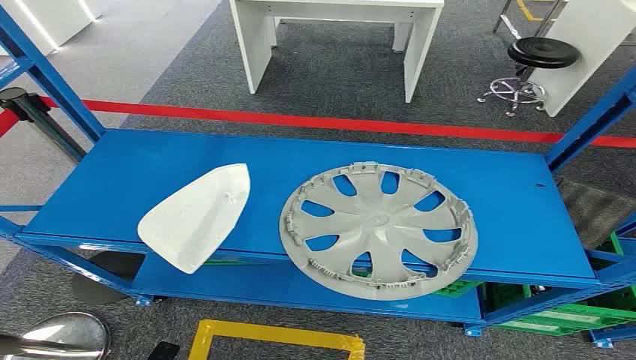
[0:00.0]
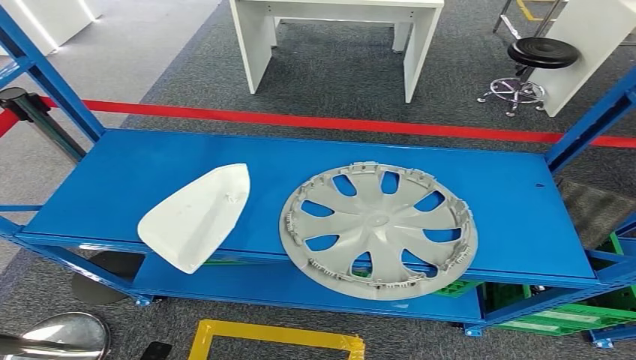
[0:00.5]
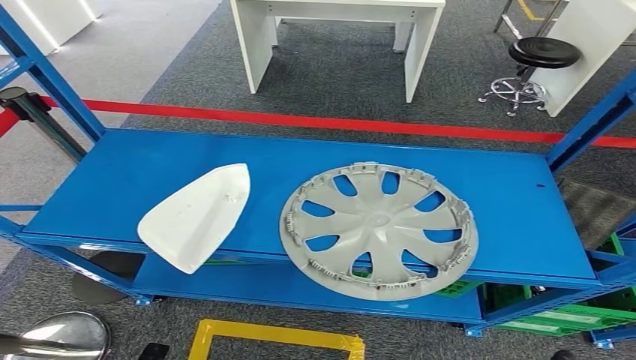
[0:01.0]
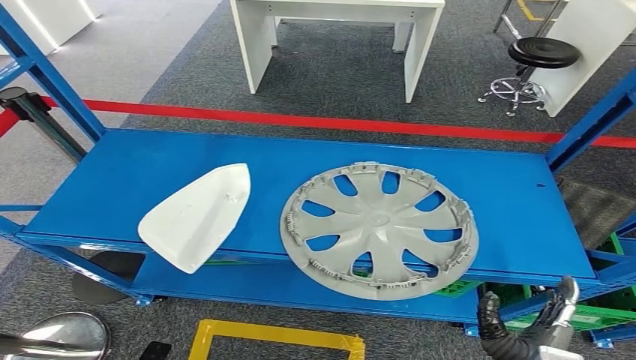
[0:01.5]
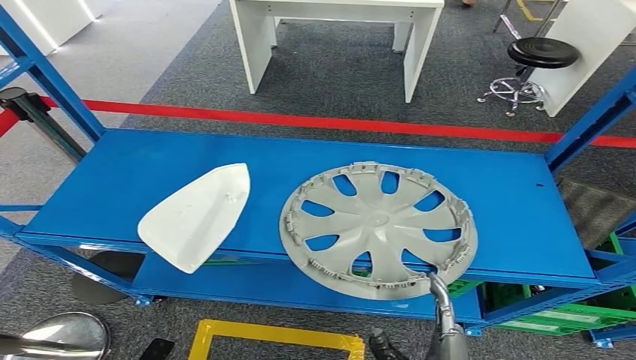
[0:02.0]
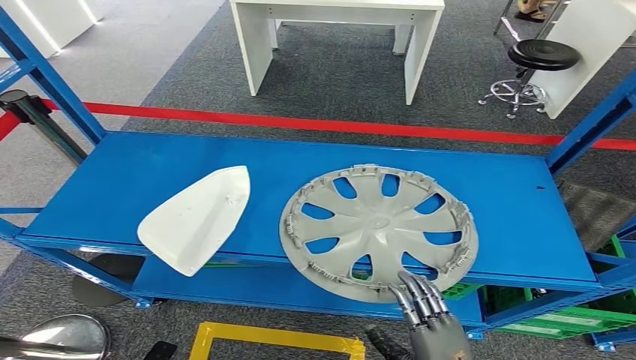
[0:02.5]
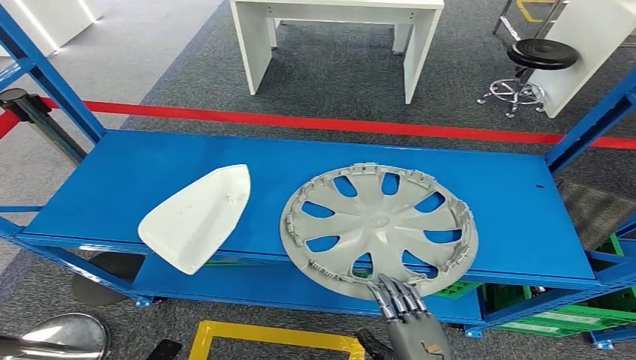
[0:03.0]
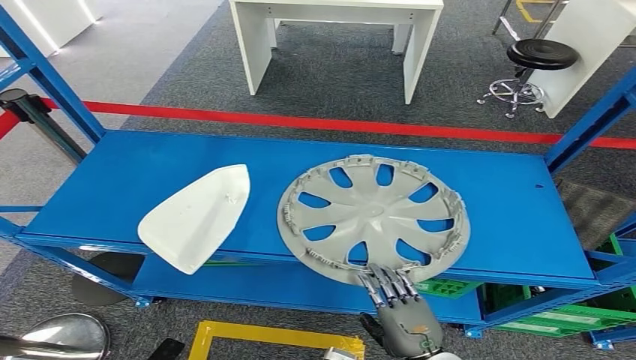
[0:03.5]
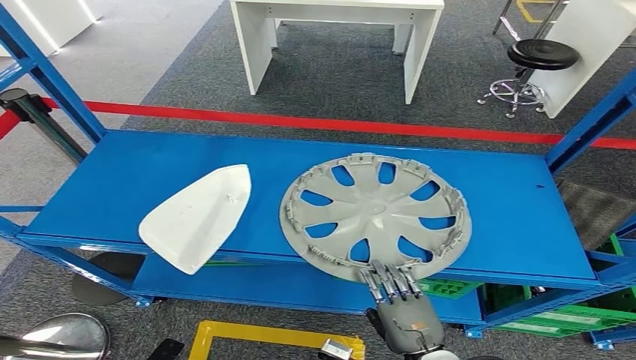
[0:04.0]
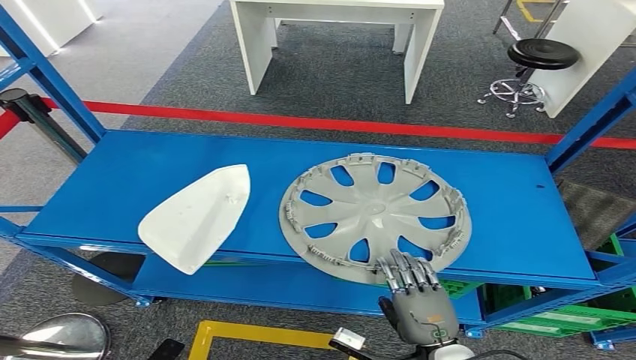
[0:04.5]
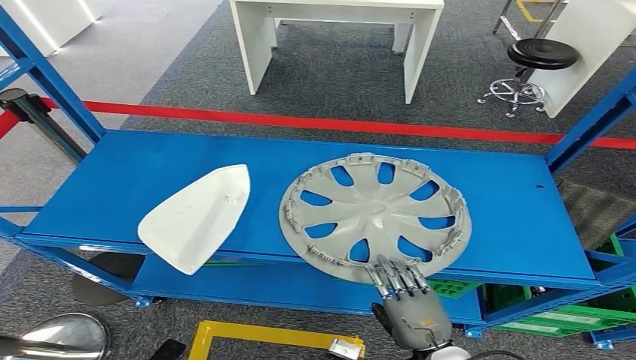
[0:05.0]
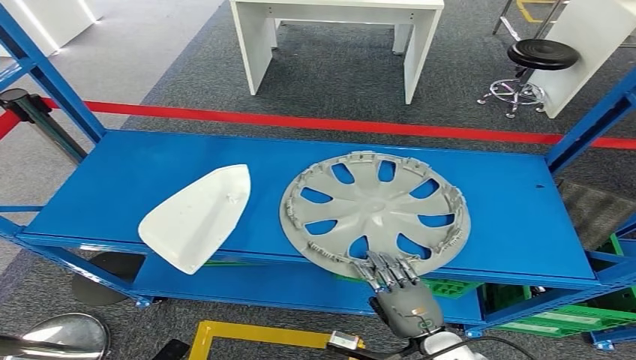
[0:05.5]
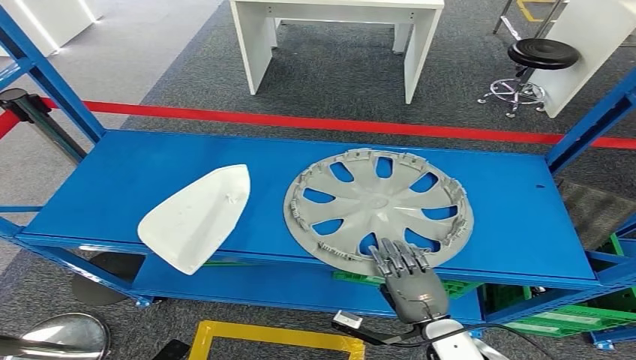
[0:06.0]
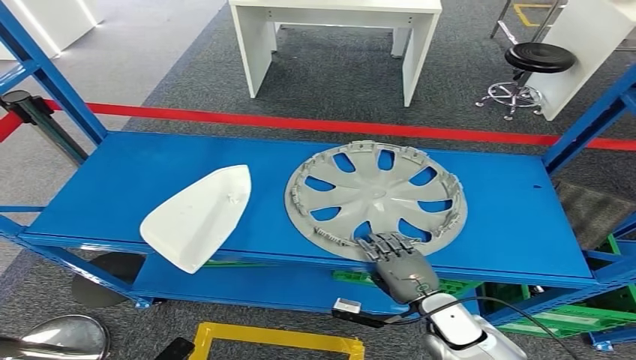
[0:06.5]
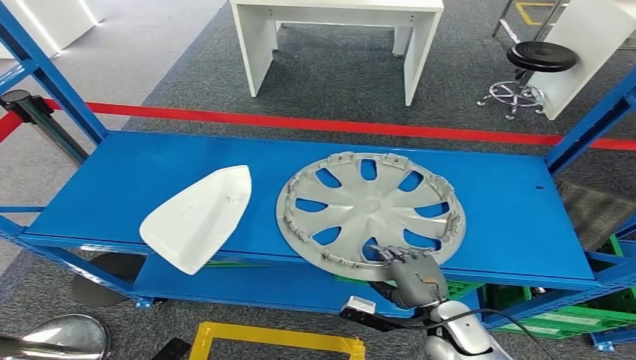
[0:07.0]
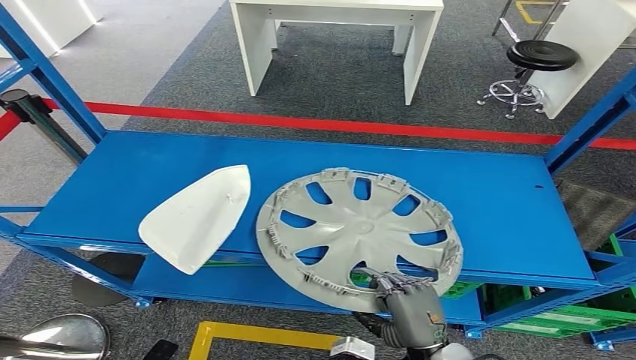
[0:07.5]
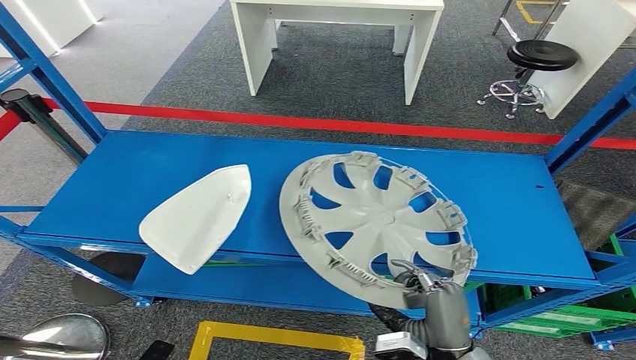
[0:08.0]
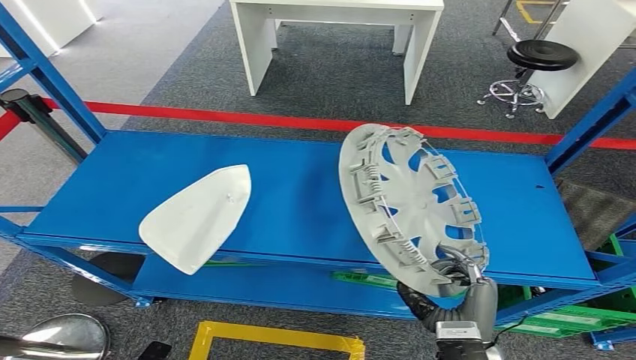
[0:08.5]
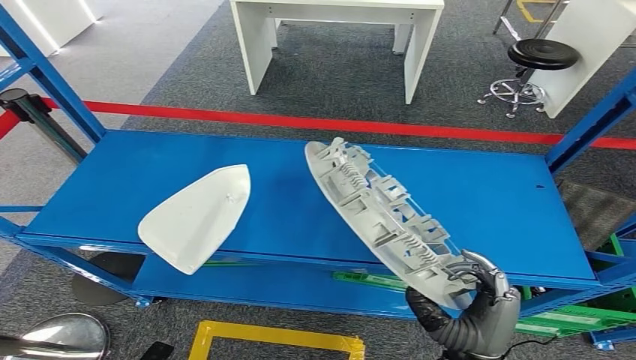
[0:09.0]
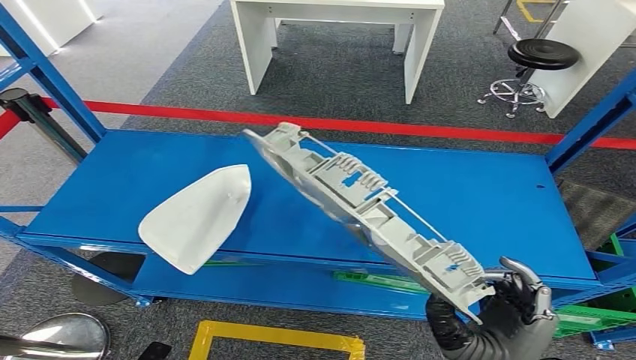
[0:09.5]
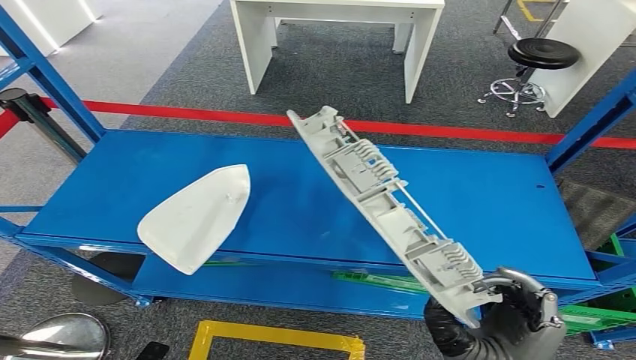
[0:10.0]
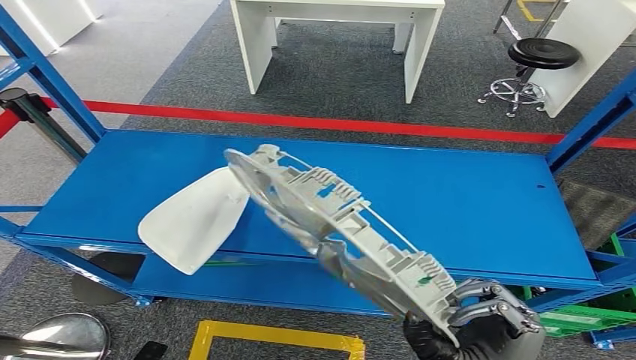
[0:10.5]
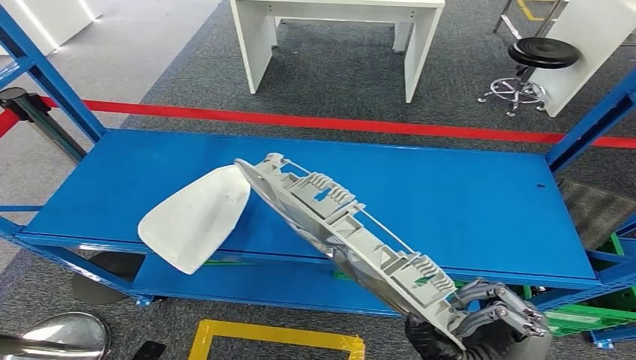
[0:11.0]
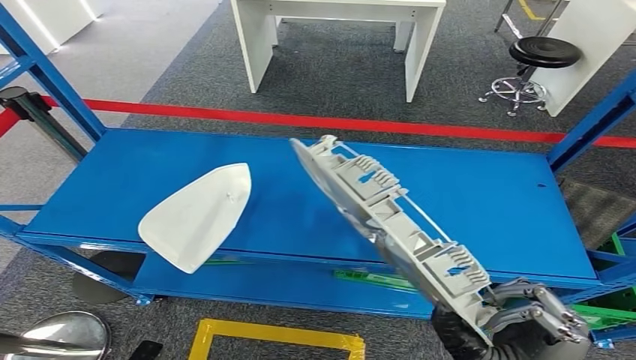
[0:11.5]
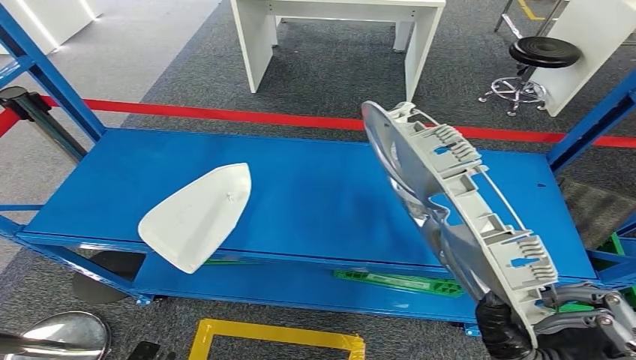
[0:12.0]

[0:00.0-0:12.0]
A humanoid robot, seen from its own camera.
Step, 0:00.0 to 0:09.0: Pick up the small component from the shelf.
0:02.0 to 0:04.0: The right hand is displaced forward by approximately 5 cm.
0:04.0 to 0:06.0: The right hand travels forward by some 5 cm.
0:06.0 to 0:08.0: The right hand travels backward by about 5 cm.
0:08.0 to 0:10.0: The right hand goes roughly 10 cm upward.

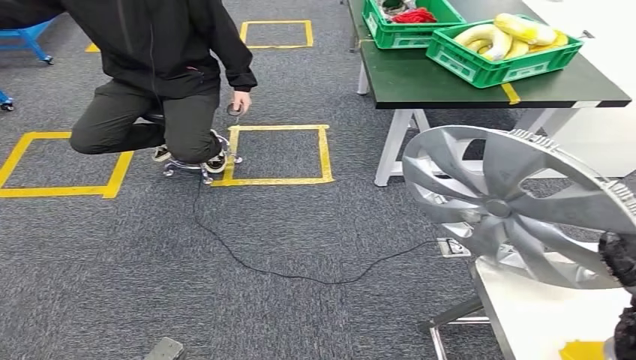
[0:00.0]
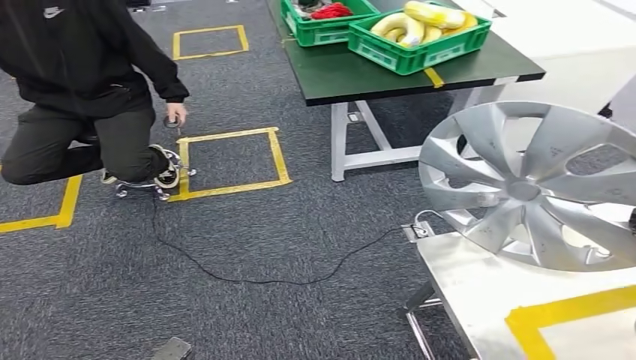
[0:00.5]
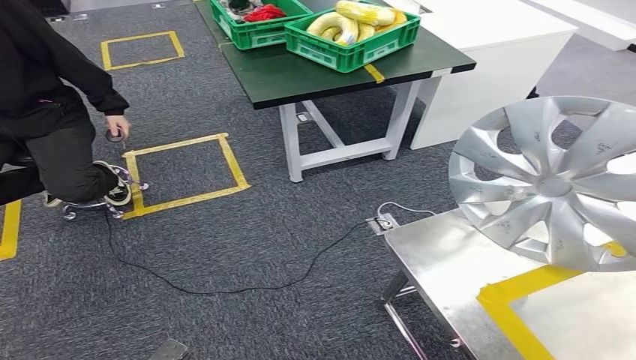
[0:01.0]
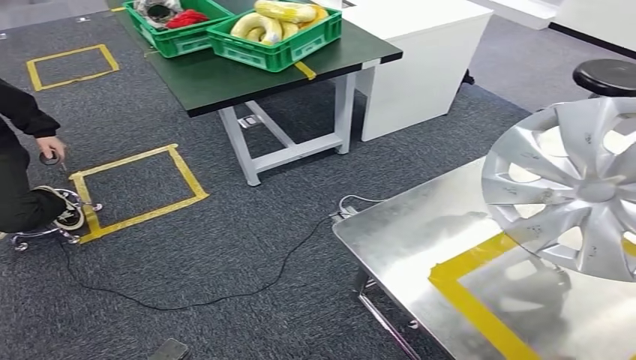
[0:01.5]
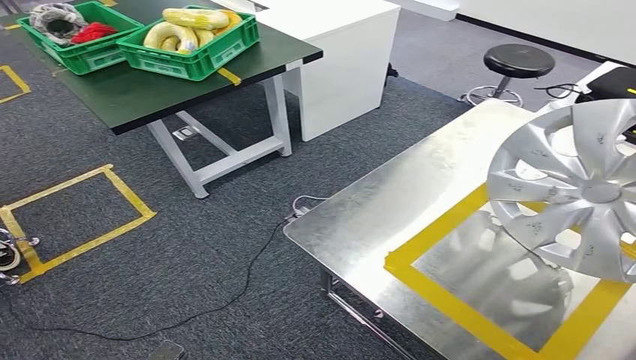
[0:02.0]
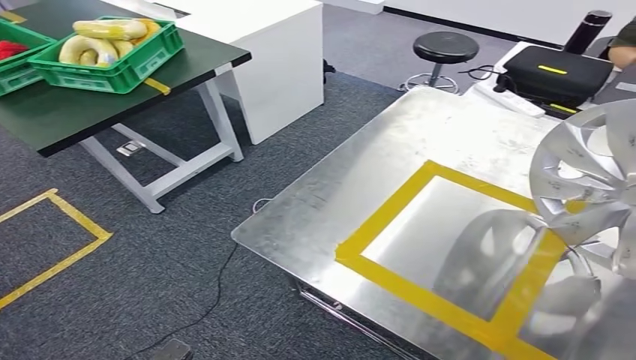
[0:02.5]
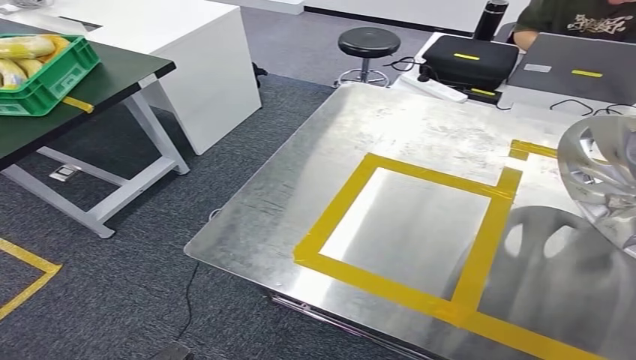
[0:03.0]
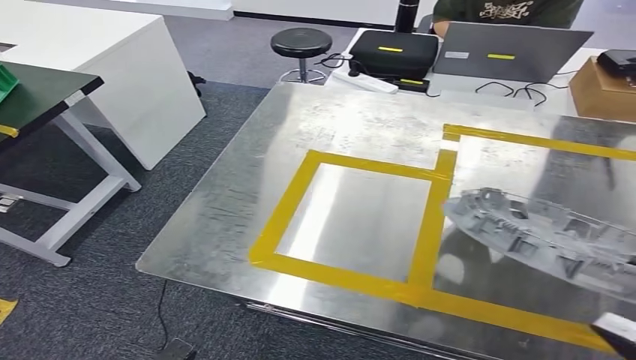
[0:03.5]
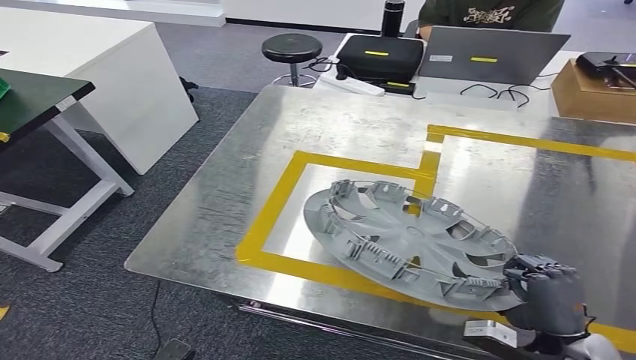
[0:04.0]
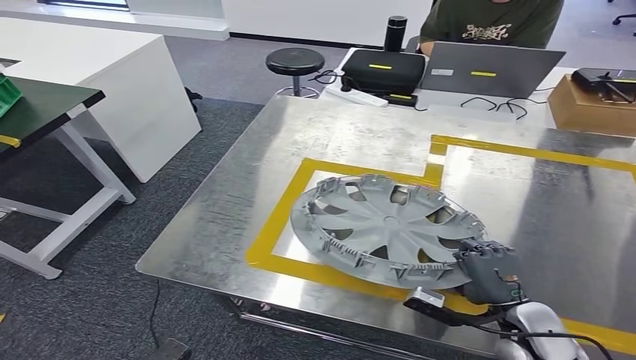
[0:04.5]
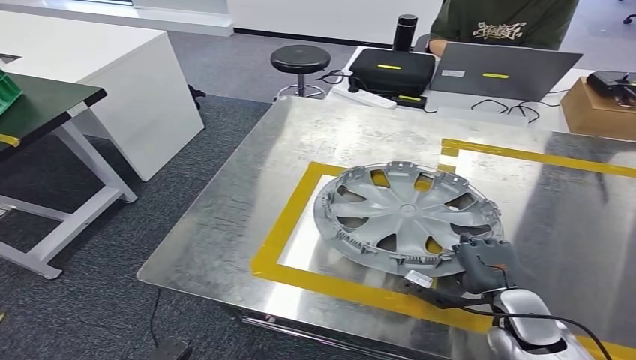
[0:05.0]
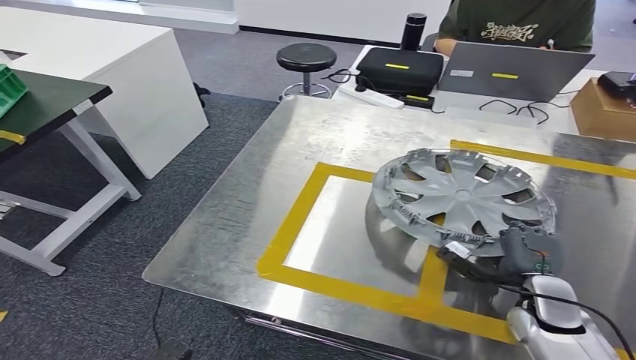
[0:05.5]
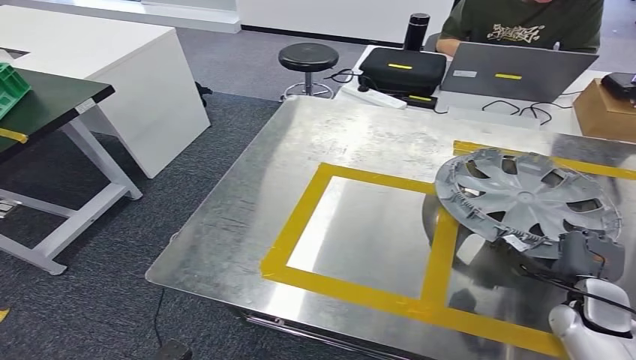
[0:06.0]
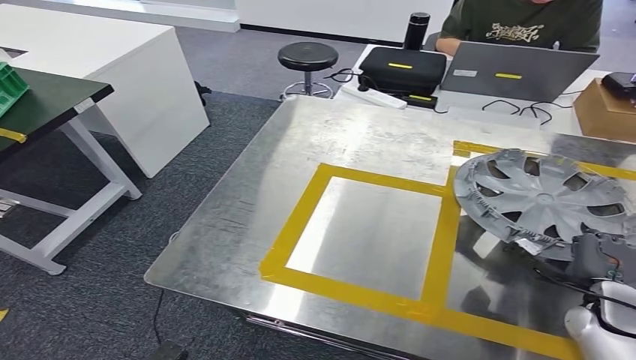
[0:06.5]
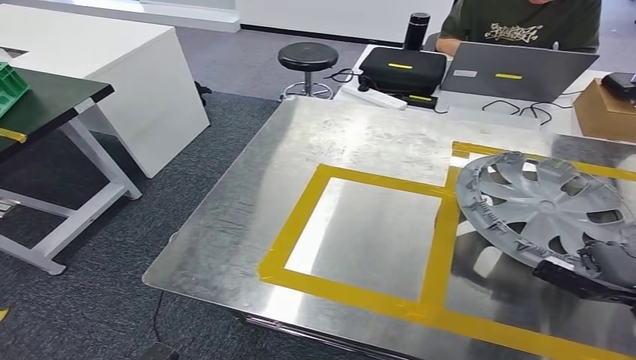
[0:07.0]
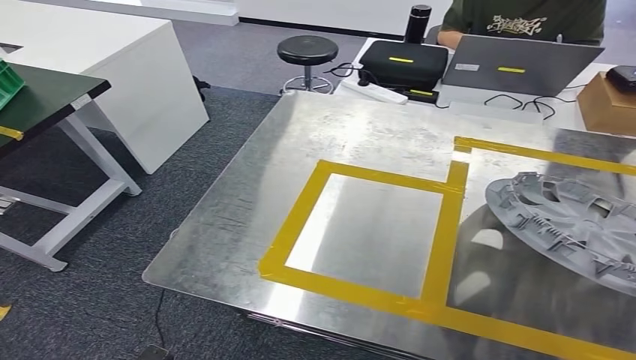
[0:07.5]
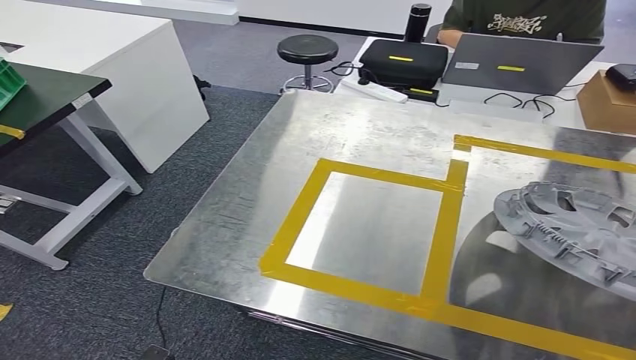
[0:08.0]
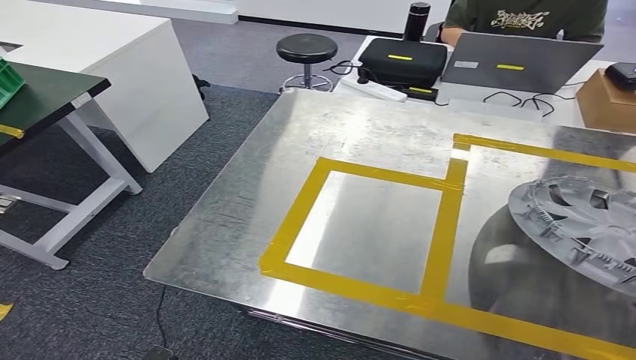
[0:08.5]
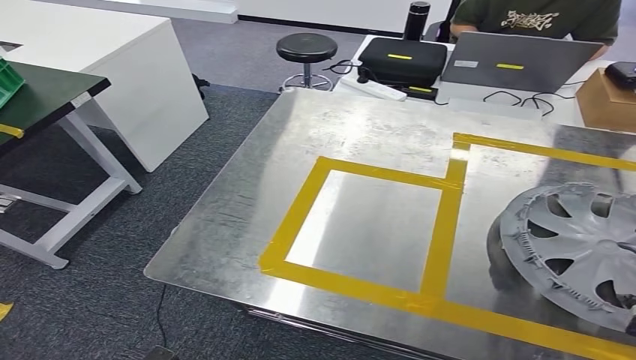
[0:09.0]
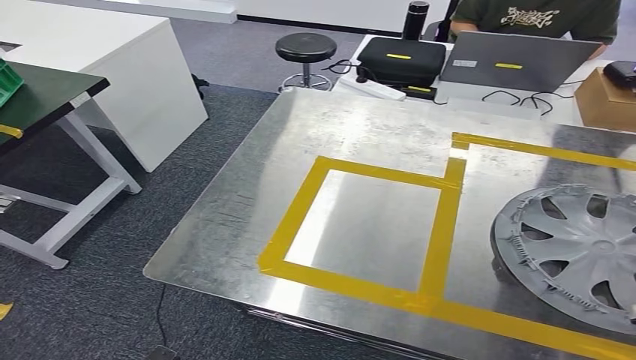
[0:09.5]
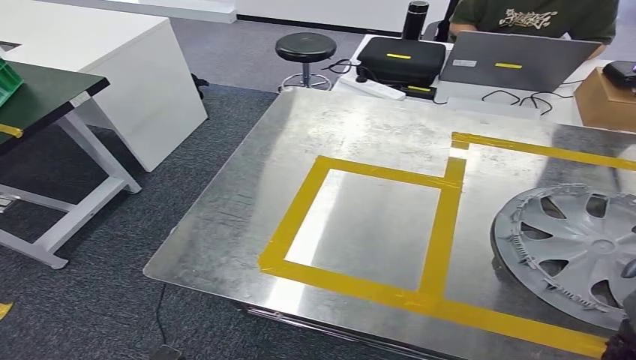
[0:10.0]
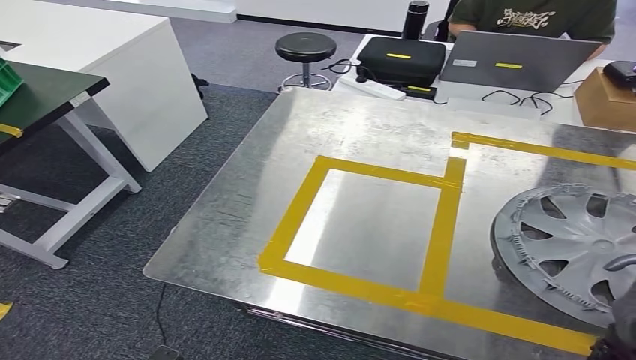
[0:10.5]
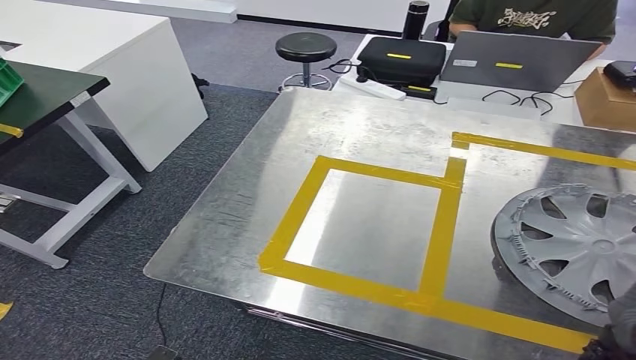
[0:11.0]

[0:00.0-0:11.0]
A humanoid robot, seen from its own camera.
Step, 0:00.0 to 0:02.5: Move the small component to the workbench.
0:07.5 to 0:09.0: The hands stay close to where they were, moving slightly.
0:09.0 to 0:11.0: The right hand moves to the left, about 20 cm.
